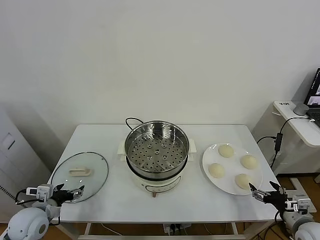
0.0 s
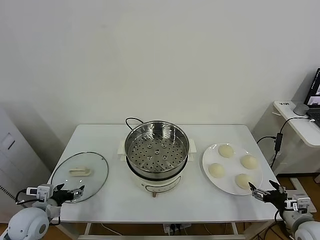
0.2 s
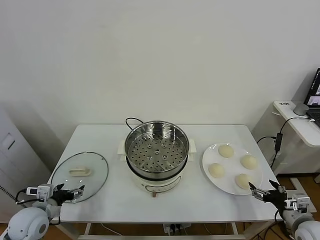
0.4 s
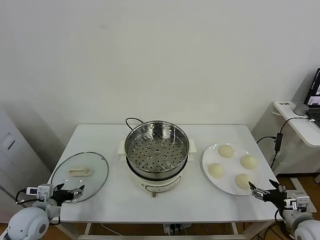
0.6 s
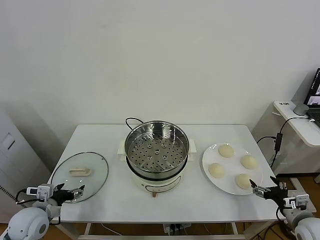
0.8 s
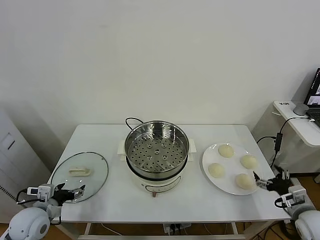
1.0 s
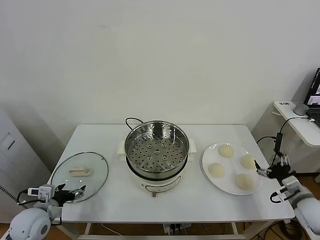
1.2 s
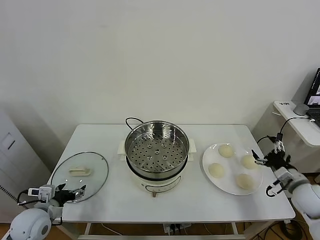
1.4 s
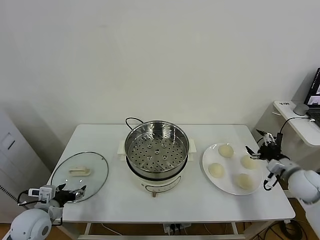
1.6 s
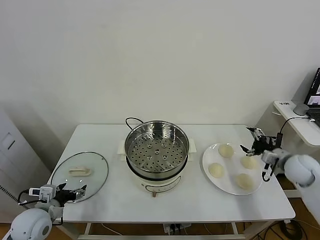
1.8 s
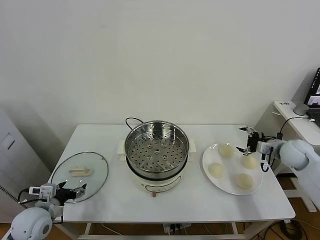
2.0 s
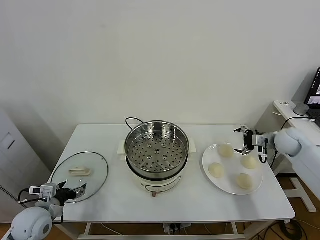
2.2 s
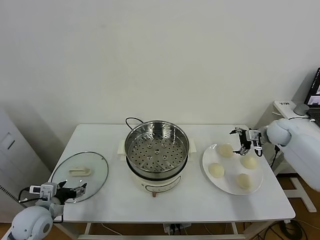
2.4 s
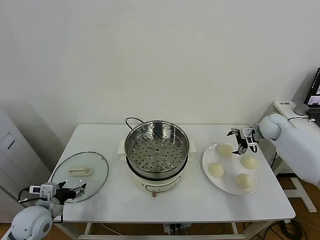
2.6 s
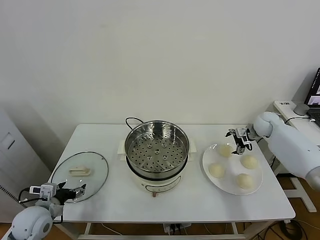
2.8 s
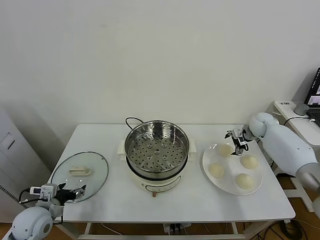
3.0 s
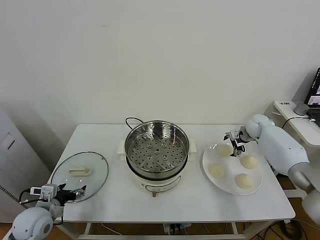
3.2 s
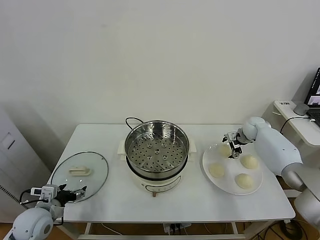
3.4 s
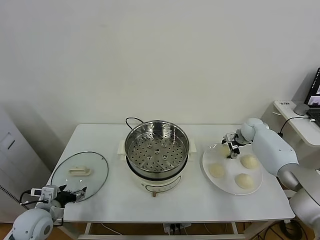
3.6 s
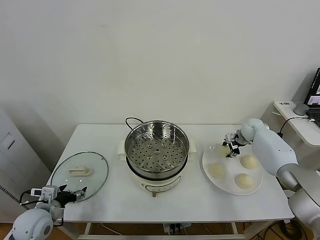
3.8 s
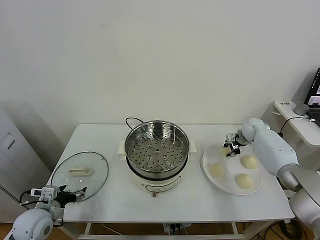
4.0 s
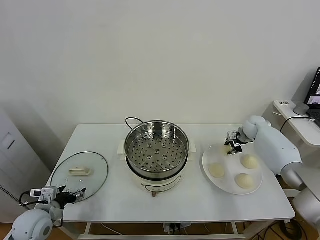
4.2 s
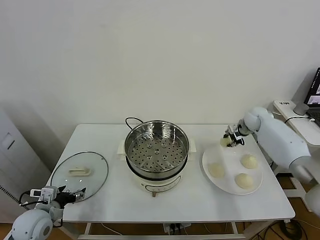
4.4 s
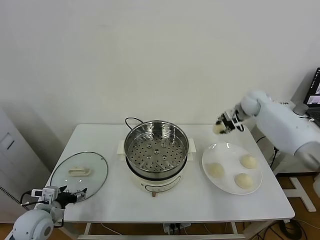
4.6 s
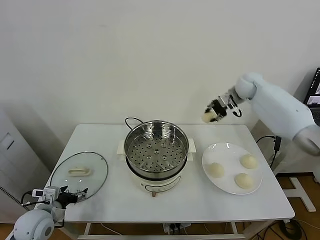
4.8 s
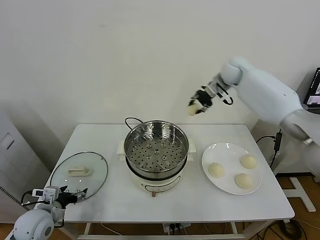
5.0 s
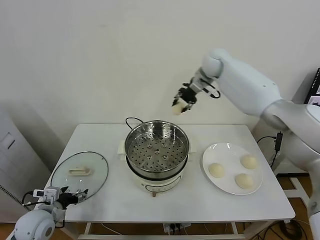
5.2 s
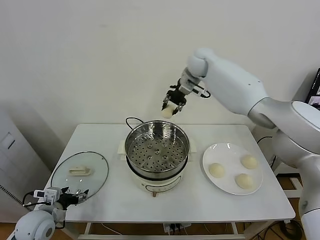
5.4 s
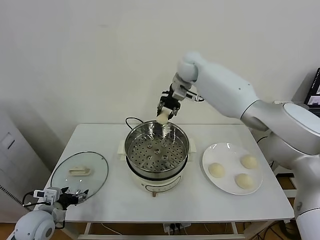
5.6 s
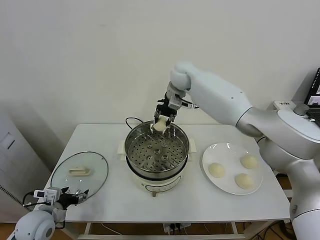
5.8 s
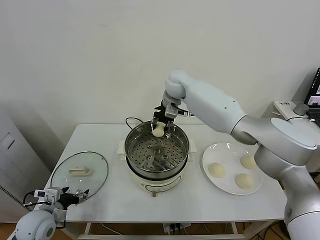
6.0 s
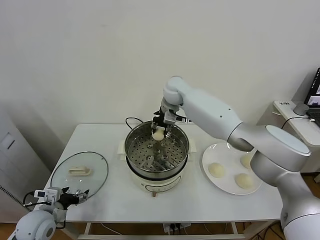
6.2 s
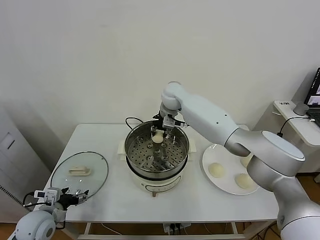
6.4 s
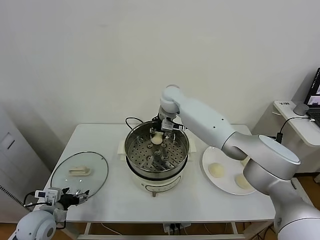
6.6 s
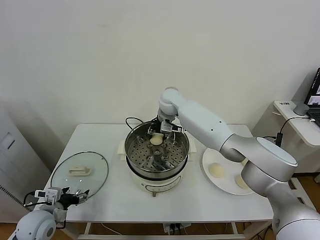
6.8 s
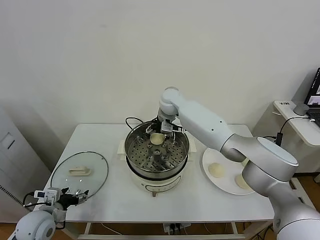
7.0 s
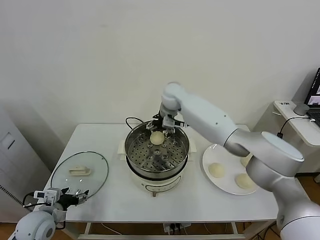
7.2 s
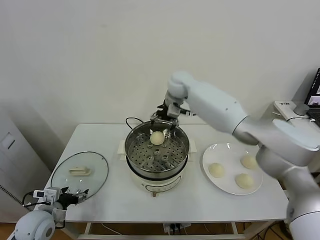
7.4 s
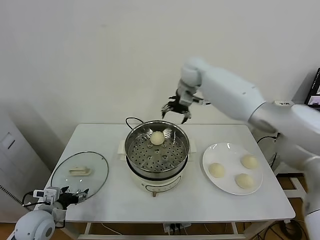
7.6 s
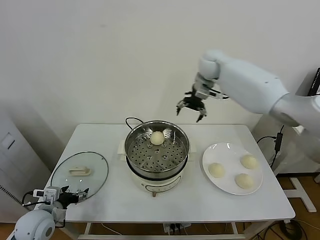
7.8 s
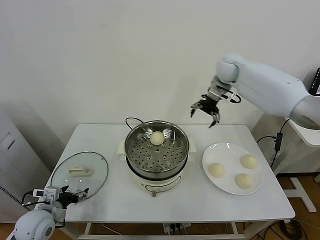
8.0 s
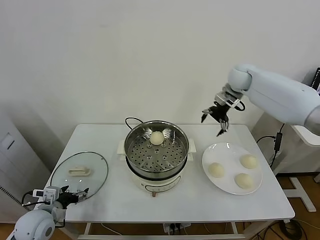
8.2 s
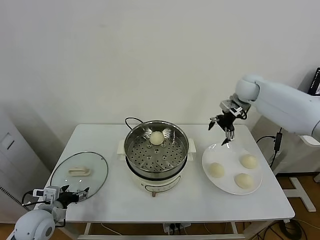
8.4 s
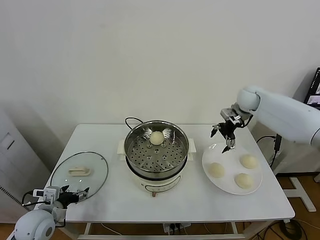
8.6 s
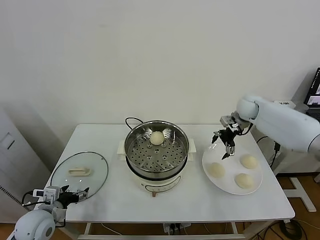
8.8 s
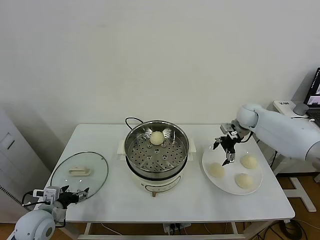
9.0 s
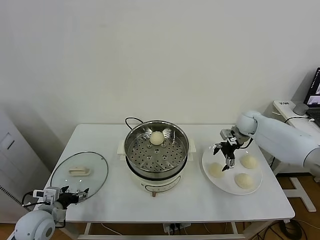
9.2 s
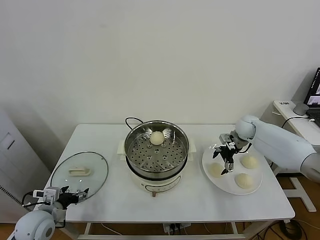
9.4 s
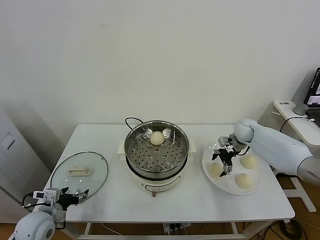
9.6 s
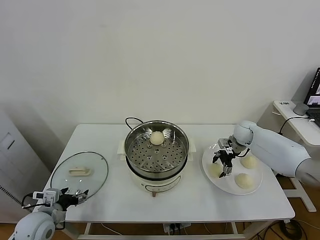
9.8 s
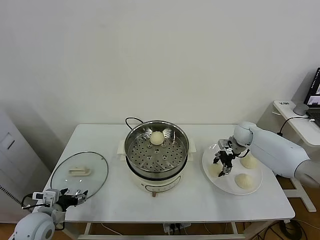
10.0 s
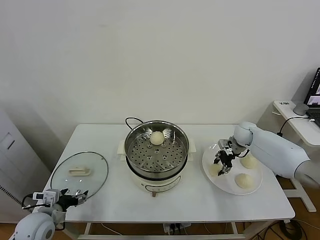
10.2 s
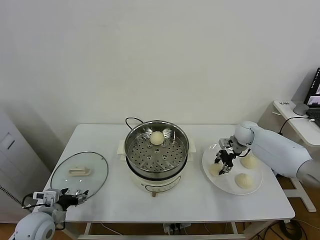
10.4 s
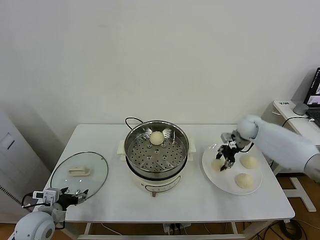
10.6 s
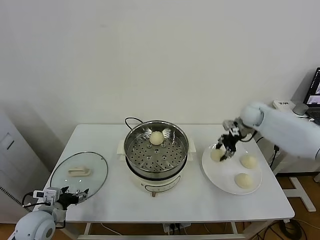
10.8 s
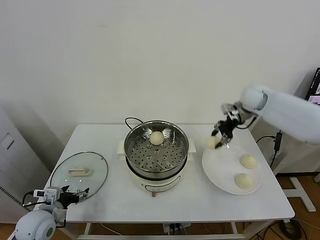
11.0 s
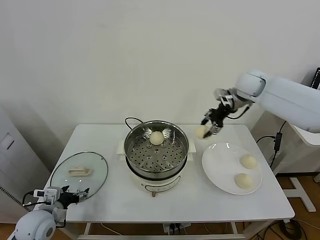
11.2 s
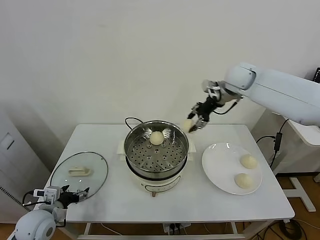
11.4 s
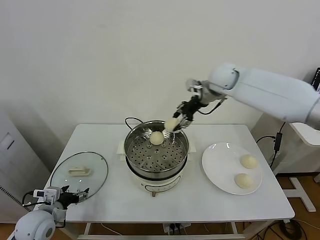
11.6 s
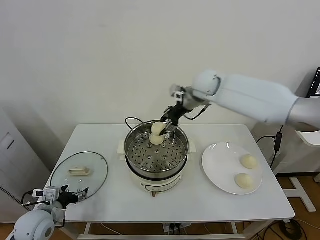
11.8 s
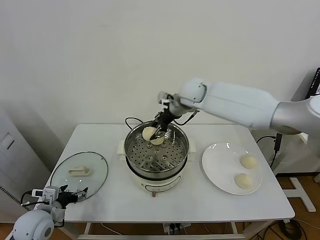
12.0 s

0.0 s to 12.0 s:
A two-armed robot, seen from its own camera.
Task of the whole recording: take steamed baozi put them in steamer.
Step, 0.0 to 3.8 s: Grasp the baozi in the plate with right gripper.
Step, 4.0 to 7.2 s: Place the baozi on the steamer with right gripper.
Step, 7.4 to 10.0 s: Grasp the baozi in the plate with right gripper.
1.6 to 3.0 s: The right gripper is displaced forward by roughly 20 cm.
3.0 to 4.4 s: The right gripper is displaced upward by roughly 5 cm, and closes.
4.4 to 6.0 s: The right gripper shifts about 35 cm to the left.
6.0 to 7.6 s: The right gripper is displaced to the right and upward by approximately 10 cm, and opens.
7.6 to 9.0 s: The right gripper goes about 30 cm to the right and downward.
9.0 to 10.4 s: The right gripper travels downward by roughly 5 cm, and closes up.
10.4 to 12.0 s: The right gripper is displaced to the left and upward by about 30 cm.

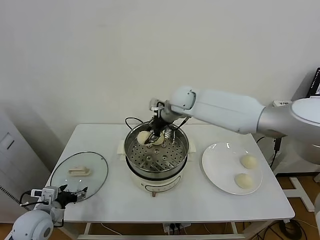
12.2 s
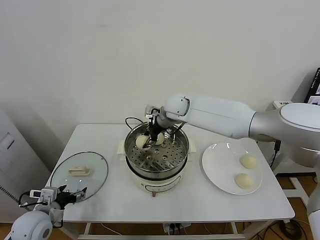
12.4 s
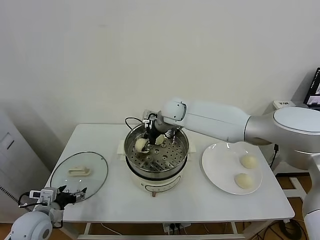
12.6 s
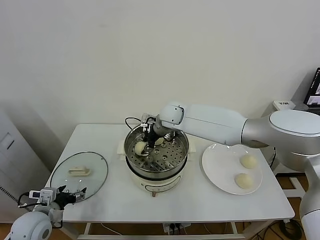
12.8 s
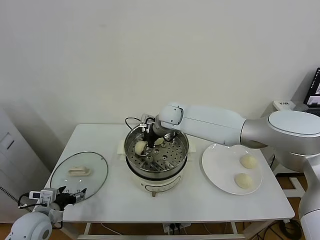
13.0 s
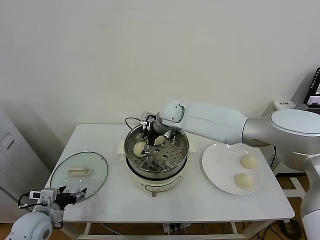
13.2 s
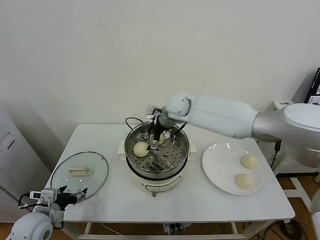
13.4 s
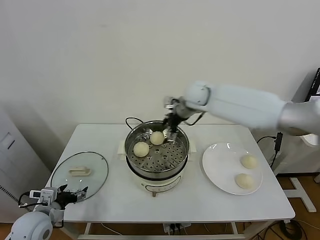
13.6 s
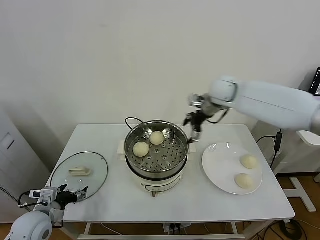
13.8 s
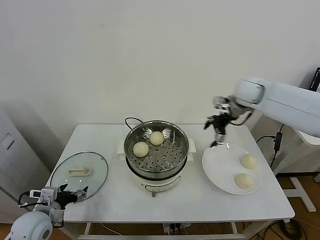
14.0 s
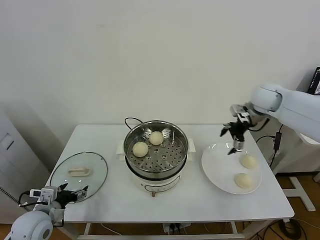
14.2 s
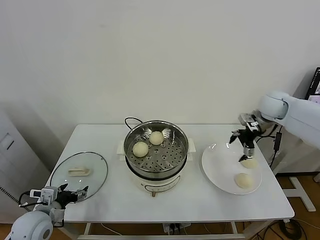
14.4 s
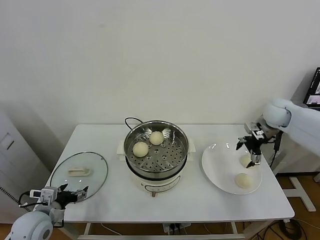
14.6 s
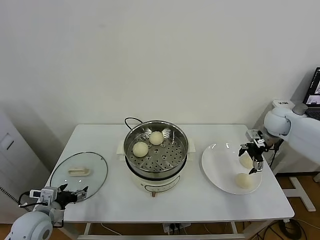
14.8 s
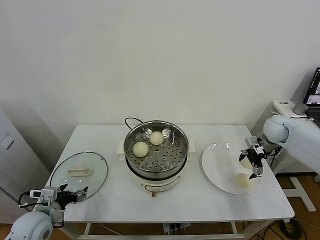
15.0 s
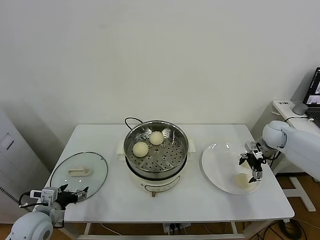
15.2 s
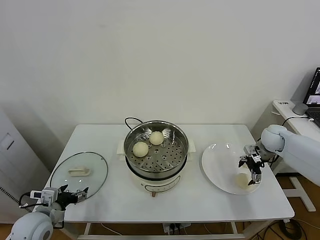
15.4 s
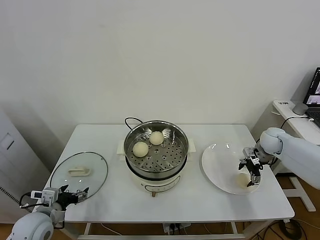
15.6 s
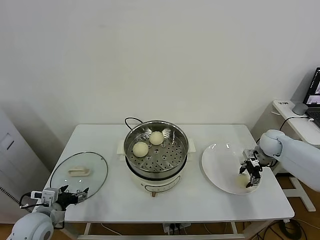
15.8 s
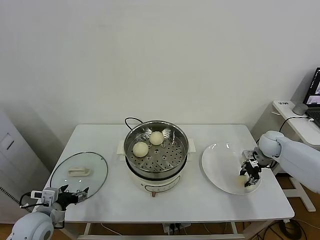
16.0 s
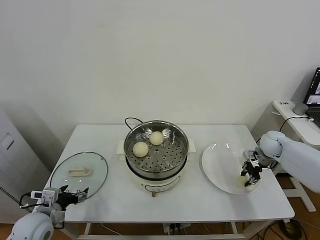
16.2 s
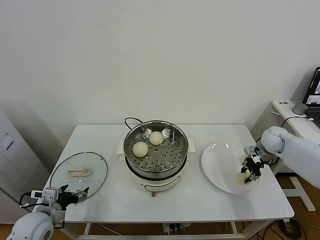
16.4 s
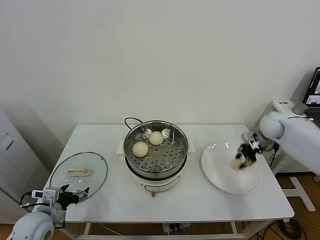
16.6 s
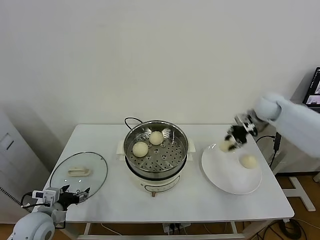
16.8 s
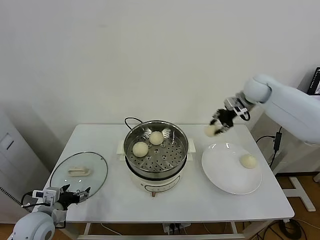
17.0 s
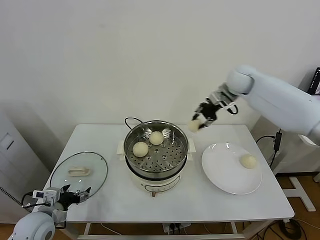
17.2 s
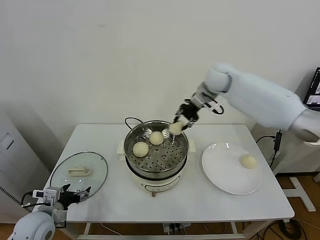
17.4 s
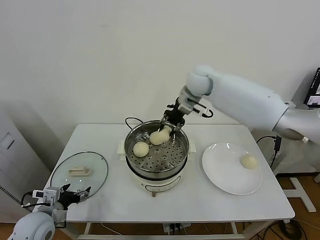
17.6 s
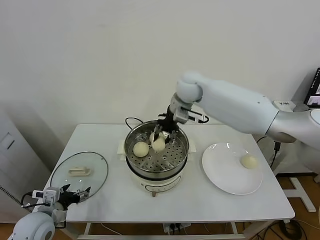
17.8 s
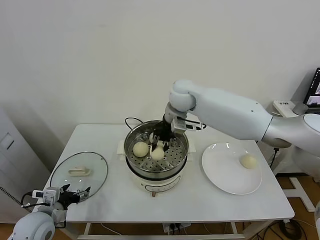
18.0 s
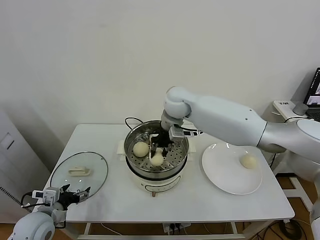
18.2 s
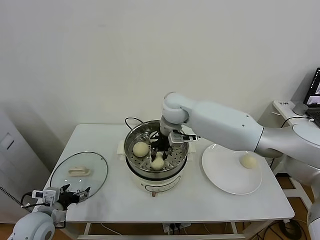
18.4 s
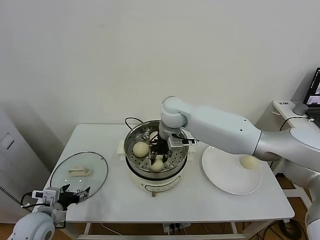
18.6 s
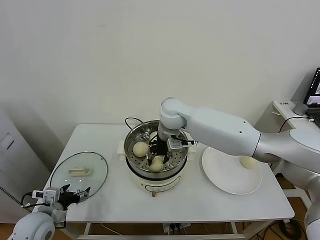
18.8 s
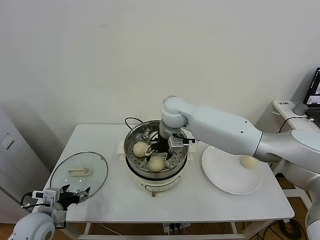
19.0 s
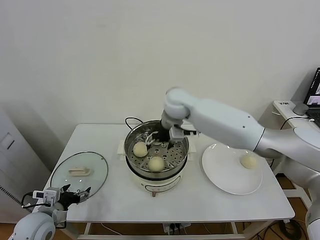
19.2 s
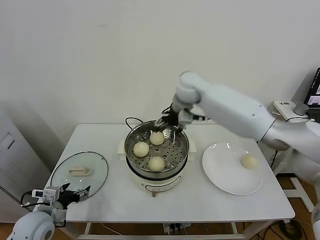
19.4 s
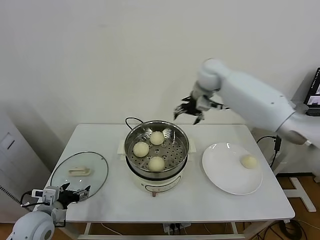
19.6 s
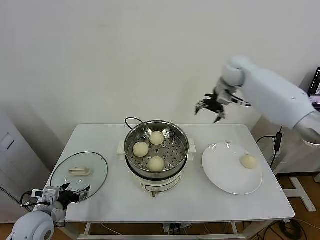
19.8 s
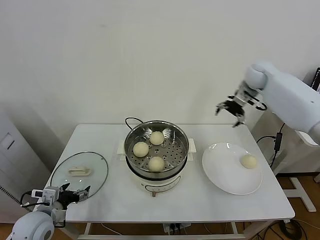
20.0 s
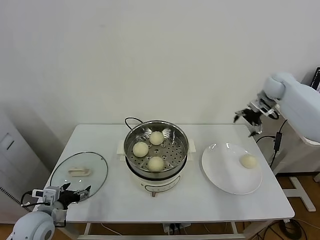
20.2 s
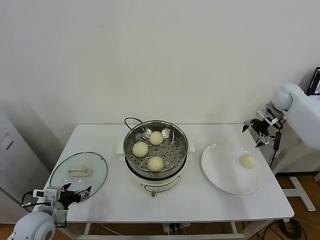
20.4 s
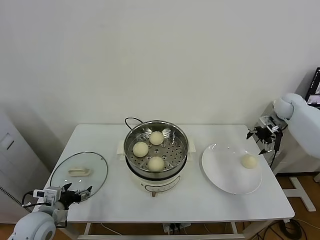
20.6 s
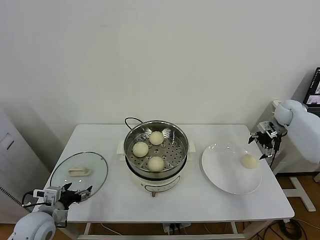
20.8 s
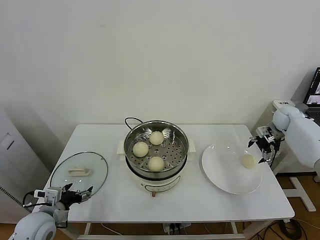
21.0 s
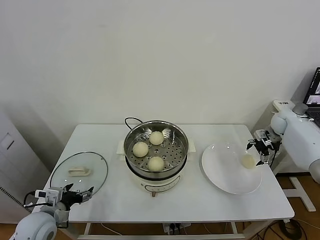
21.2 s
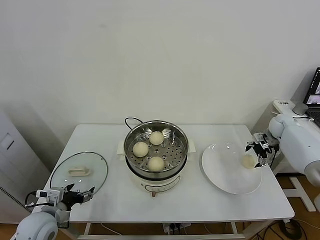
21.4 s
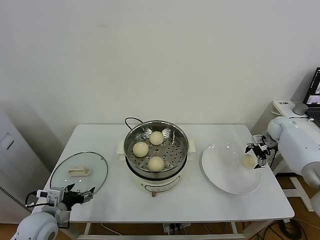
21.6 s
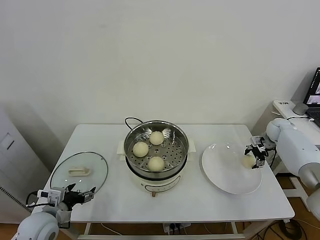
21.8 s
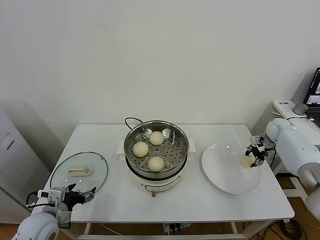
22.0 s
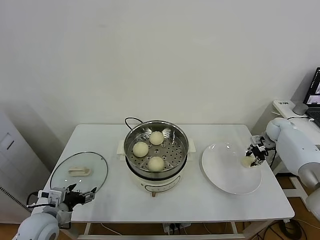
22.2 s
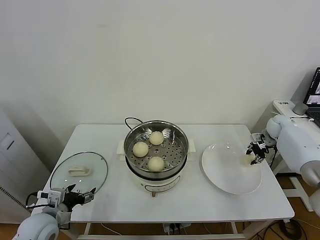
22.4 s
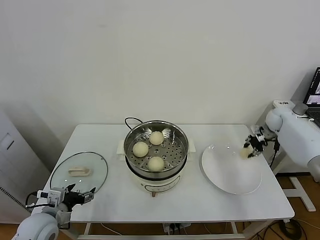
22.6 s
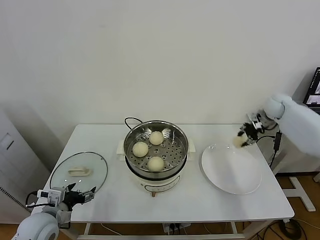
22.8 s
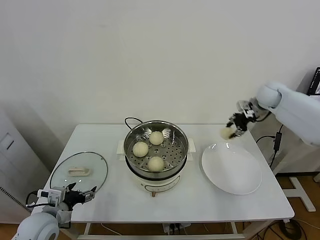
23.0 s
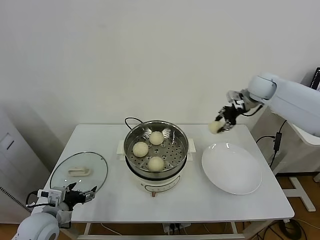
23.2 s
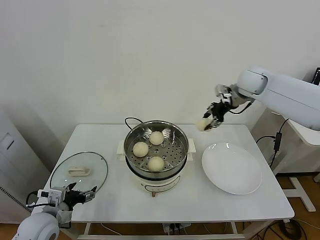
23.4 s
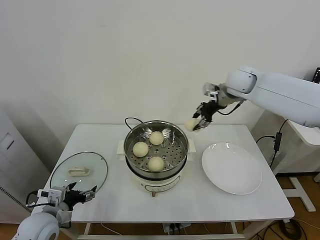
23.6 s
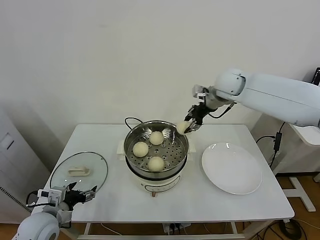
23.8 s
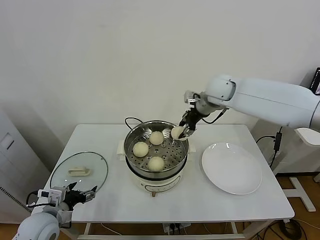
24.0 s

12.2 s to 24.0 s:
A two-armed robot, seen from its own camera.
Task of the whole recording: take steamed baozi put them in steamer.
Step, 13.4 to 16.0 s: Grasp the baozi in the plate with right gripper.
Step, 16.2 to 19.0 s: Place the baozi on the steamer with right gripper.
Step, 19.4 to 22.0 s: Grasp the baozi in the plate with right gripper.
12.2 to 13.6 s: The right gripper is displaced to the right by some 10 cm, and opens up.
13.6 to 15.2 s: The right gripper heads to the right and downward, covering some 30 cm.
15.2 to 16.6 s: The right gripper shifts about 5 cm upward, and closes up.
16.6 to 18.2 s: The right gripper heads to the left, covering approximately 35 cm.
18.2 to 19.6 s: The right gripper moves to the right, forward and upward, some 15 cm, and opens up.
19.6 to 21.0 s: The right gripper shifts approximately 35 cm to the right and downward.
21.0 to 22.6 s: The right gripper closes up.
22.6 to 24.0 s: The right gripper travels to the left and upward by about 30 cm.
